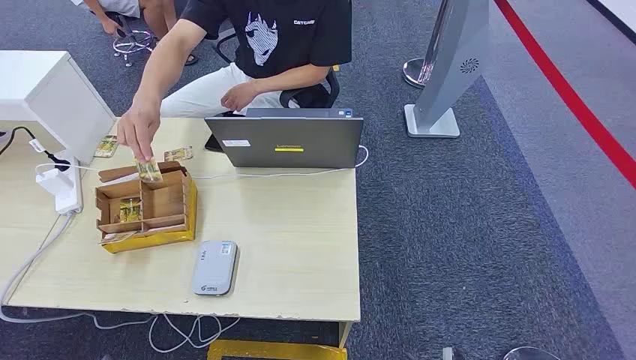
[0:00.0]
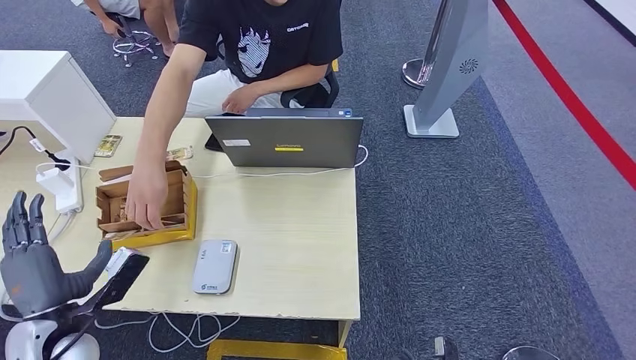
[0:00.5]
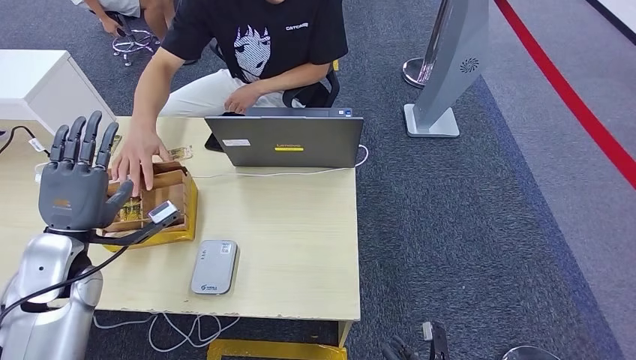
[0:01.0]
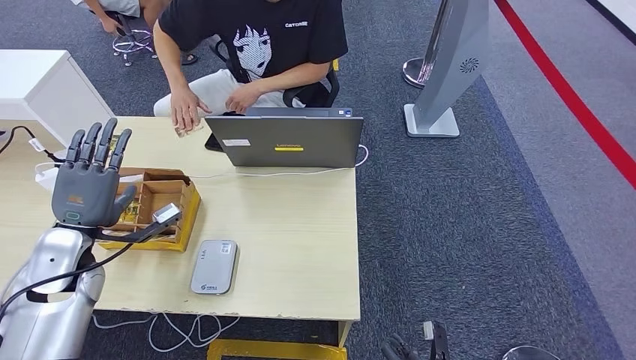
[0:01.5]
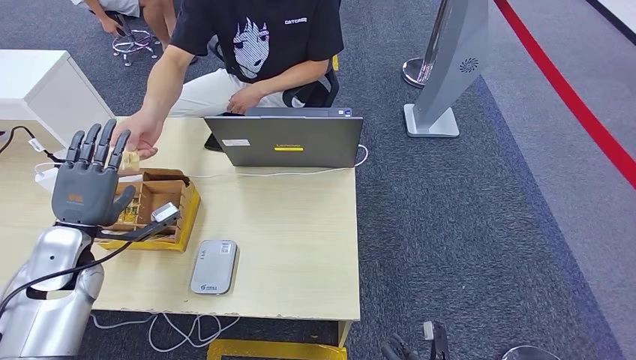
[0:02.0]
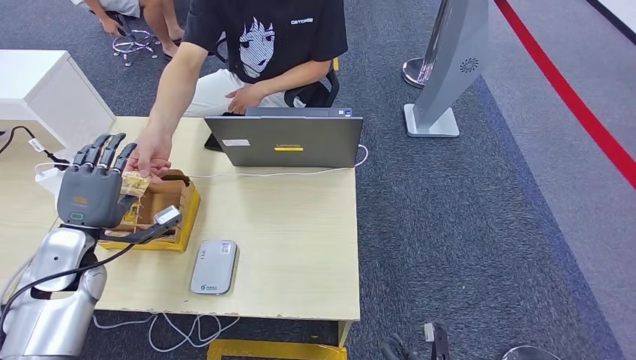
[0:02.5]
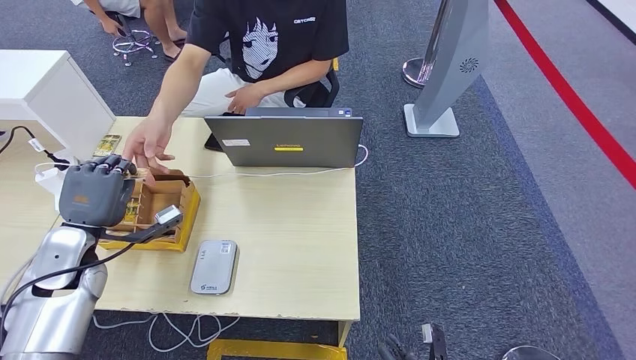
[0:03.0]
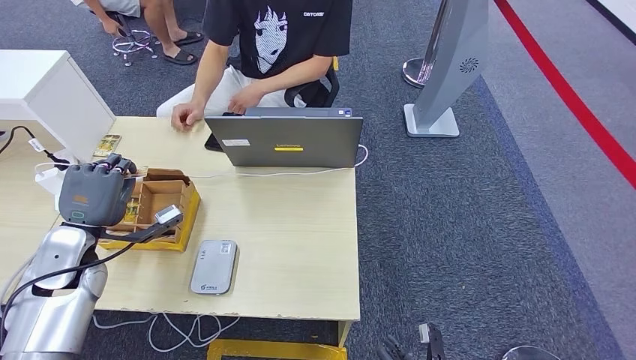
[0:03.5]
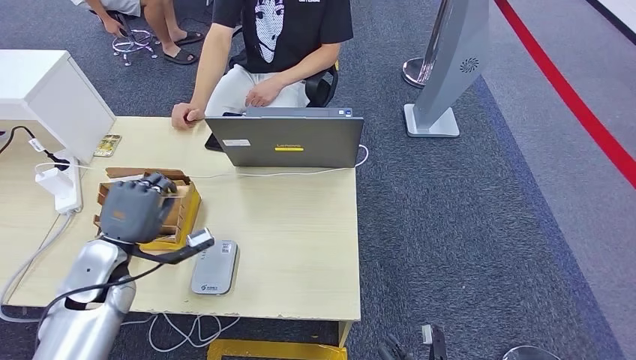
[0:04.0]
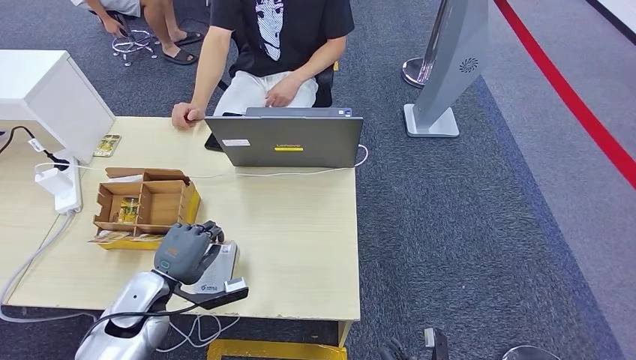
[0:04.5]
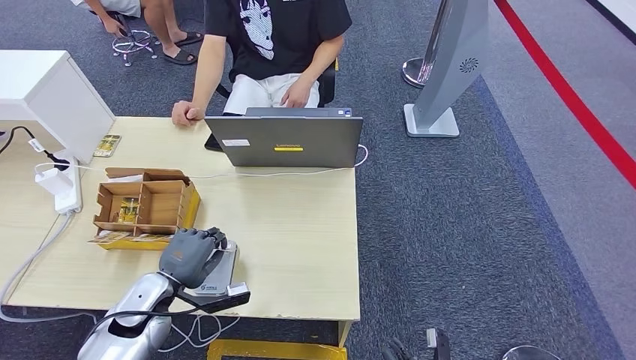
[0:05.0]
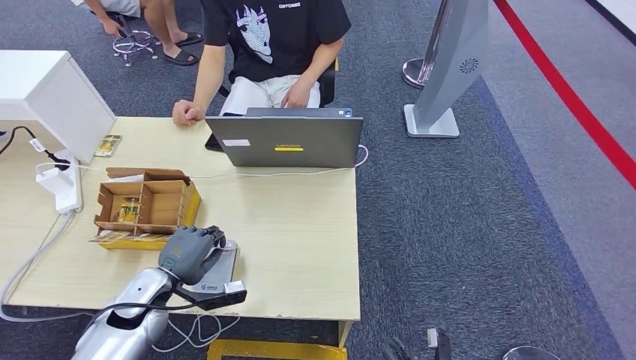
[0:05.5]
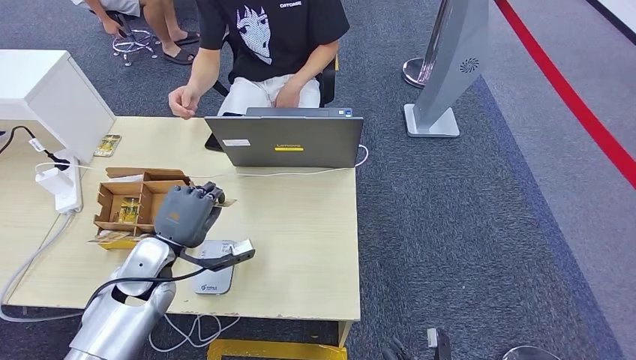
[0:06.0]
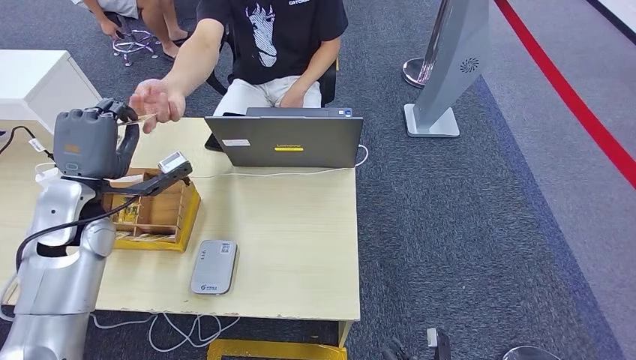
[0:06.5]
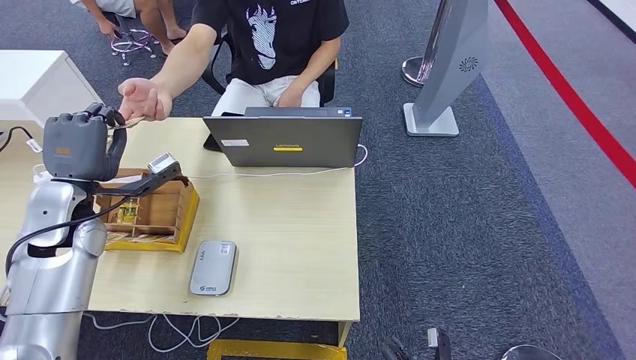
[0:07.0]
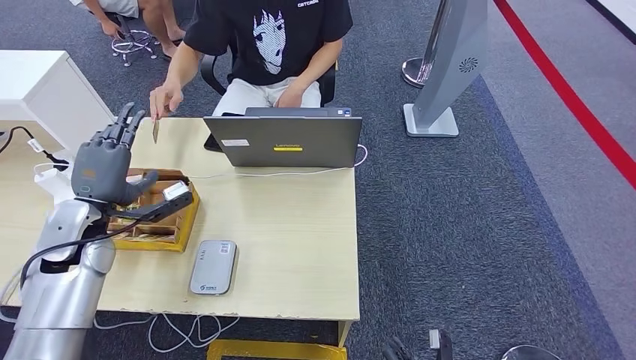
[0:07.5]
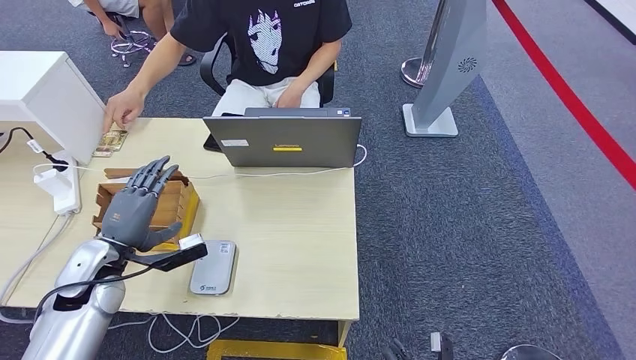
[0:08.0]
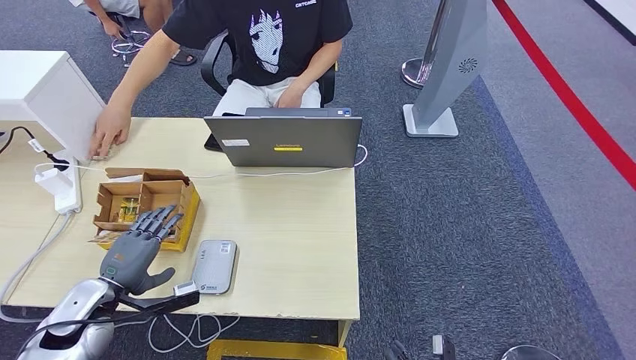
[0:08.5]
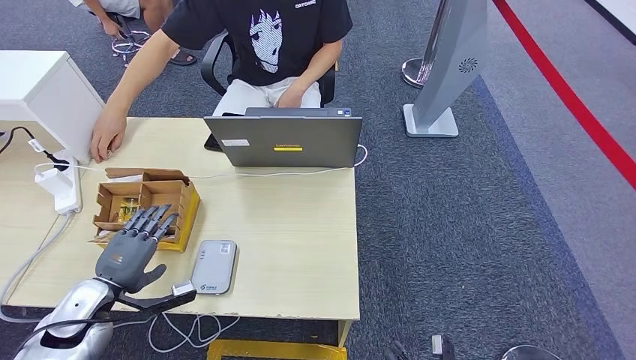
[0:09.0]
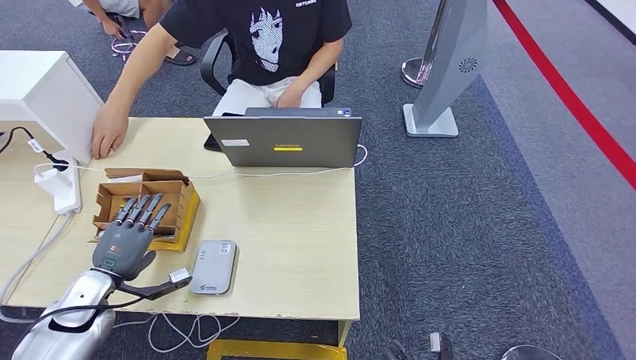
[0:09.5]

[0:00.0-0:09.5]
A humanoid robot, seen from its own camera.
Step, 0:00.0 to 0:03.5: Take the ID card from the person's hand.
Step, 0:04.0 to 0:05.0: Place the ID card on the card reader.
Step, 0:05.5 to 0:07.5: Hand the ID card to the person.
0:02.0 to 0:04.0: The left hand moves roughly 5 cm.
0:04.0 to 0:05.5: The left hand heads downward, covering about 10 cm.
0:05.5 to 0:07.5: The left hand heads upward and to the left, covering some 15 cm.
0:07.5 to 0:09.5: The left hand moves downward and backward, some 15 cm.

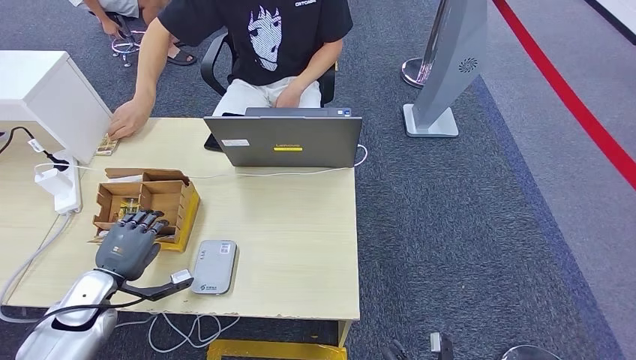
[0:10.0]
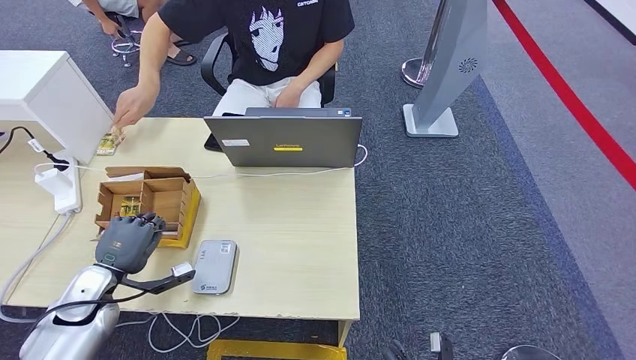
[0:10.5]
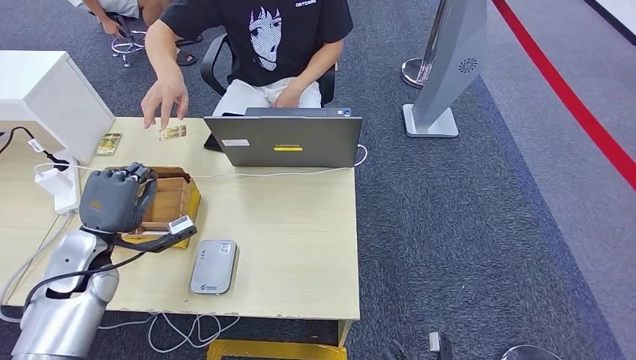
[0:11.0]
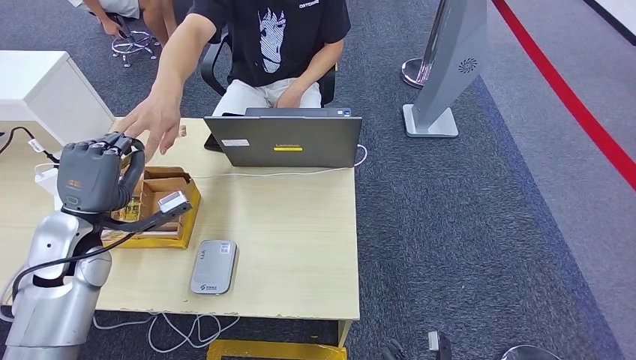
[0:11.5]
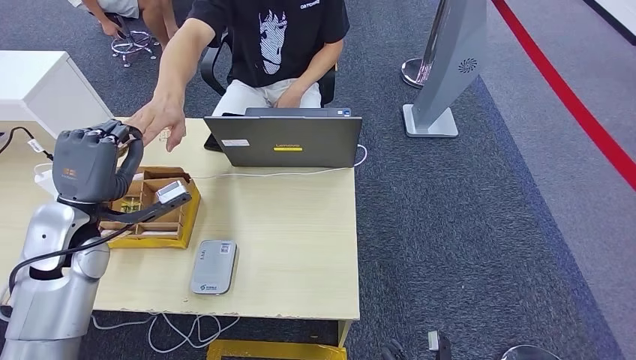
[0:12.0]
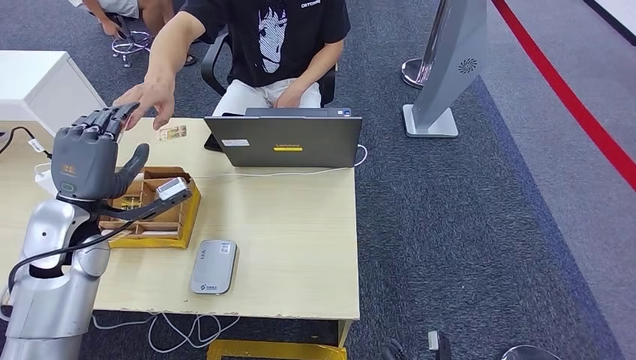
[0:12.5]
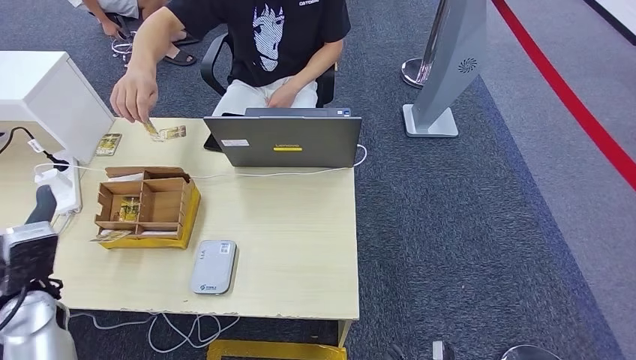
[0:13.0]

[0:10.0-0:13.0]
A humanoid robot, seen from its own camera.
Step, 0:11.5 to 0:13.0: Hand the room key to the person.
0:10.0 to 0:11.5: The left hand heads upward, covering roughly 15 cm.
0:11.5 to 0:13.0: The left hand shifts roughly 10 cm backward.
